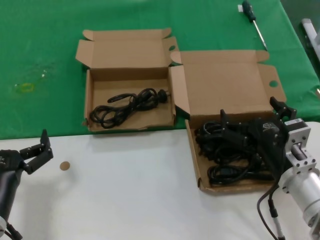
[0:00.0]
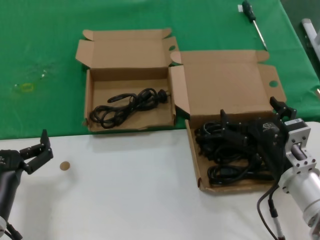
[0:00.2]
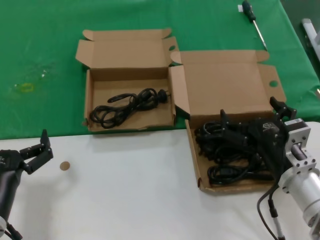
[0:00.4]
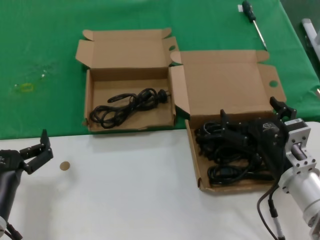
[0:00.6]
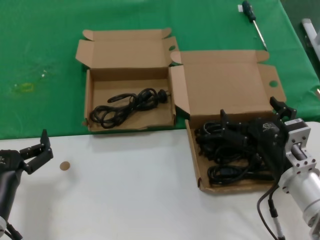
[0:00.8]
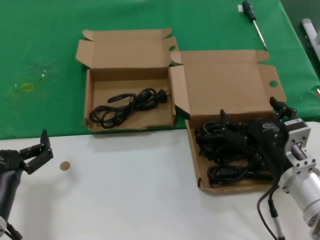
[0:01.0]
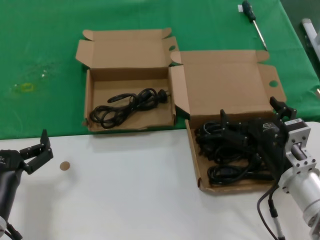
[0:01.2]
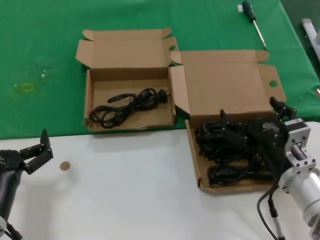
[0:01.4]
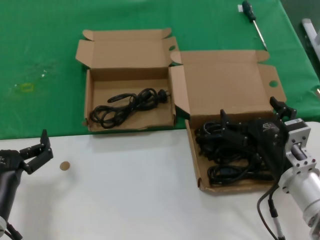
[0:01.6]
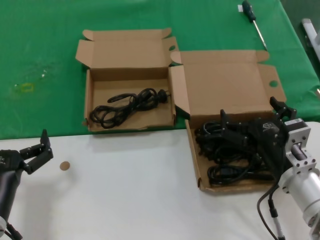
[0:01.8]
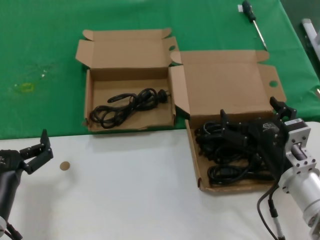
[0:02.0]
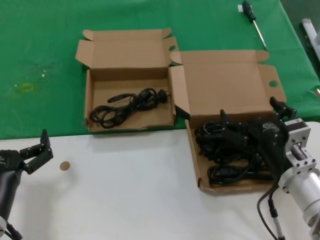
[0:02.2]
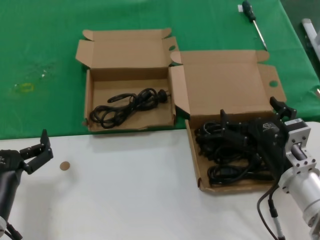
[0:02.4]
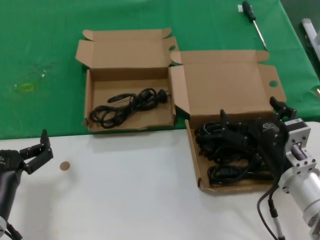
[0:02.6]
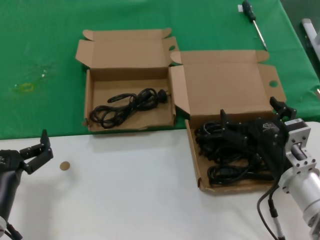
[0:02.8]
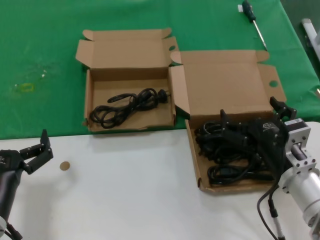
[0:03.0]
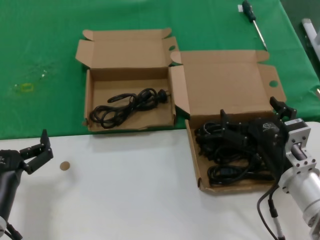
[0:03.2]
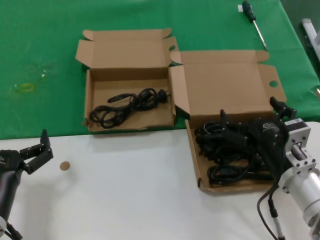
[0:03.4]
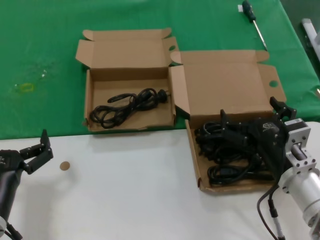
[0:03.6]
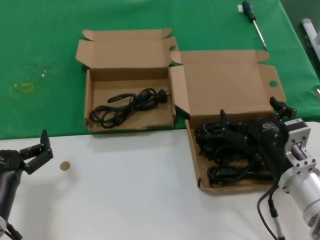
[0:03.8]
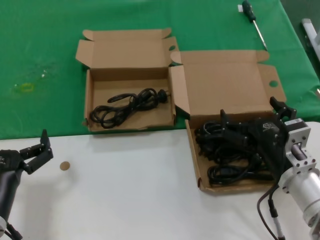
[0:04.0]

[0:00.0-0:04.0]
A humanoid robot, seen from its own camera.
Task of the whole recording: take the parts from the box containing them and put them into an empty box.
0:00.0 to 0:04.0: Both hands stay about where they are.
